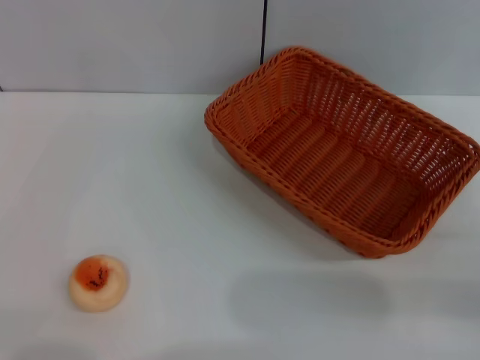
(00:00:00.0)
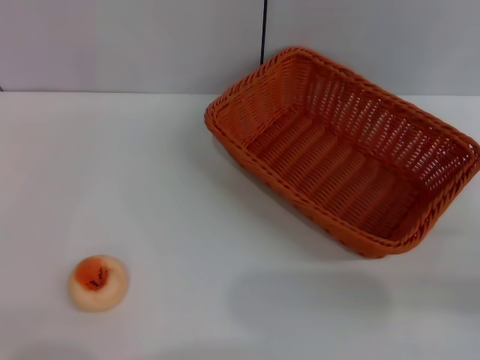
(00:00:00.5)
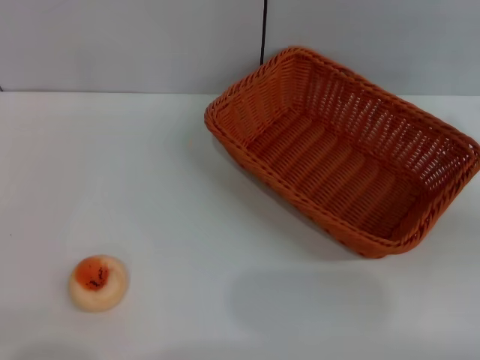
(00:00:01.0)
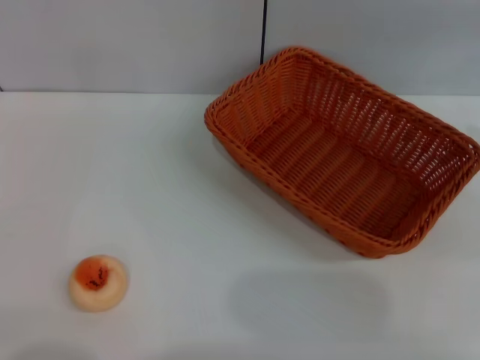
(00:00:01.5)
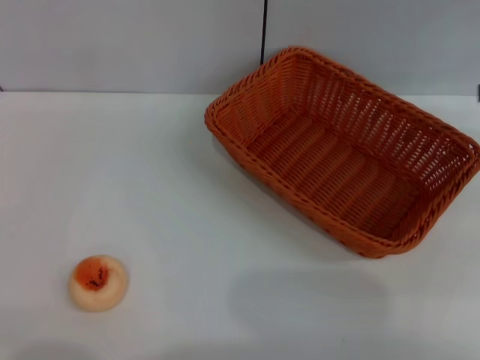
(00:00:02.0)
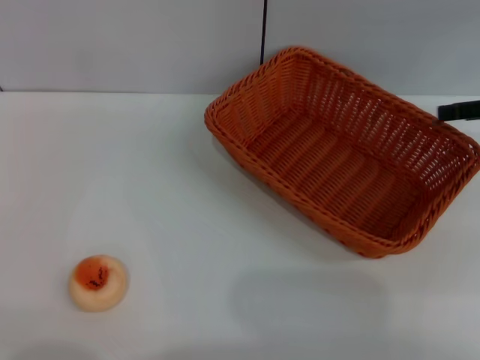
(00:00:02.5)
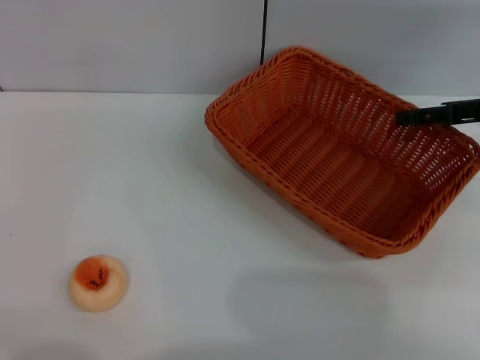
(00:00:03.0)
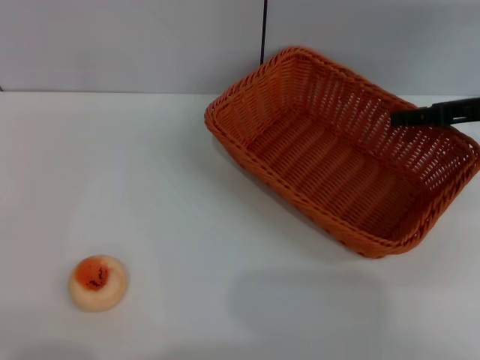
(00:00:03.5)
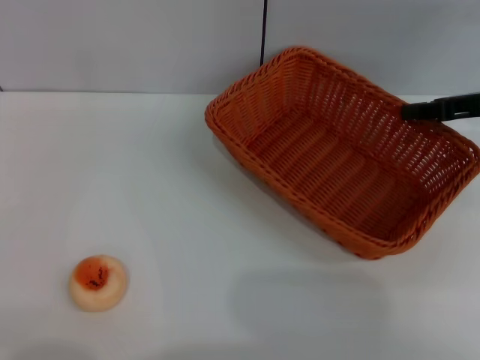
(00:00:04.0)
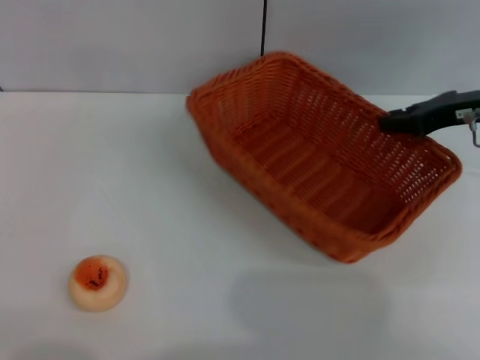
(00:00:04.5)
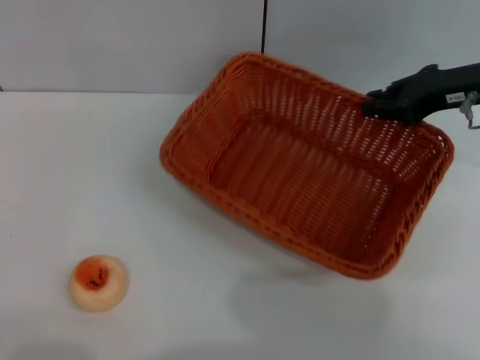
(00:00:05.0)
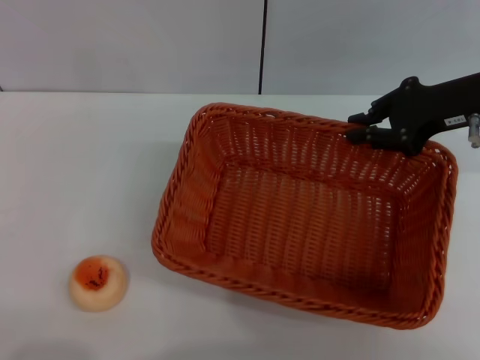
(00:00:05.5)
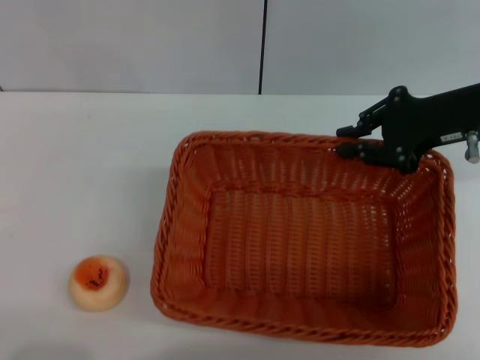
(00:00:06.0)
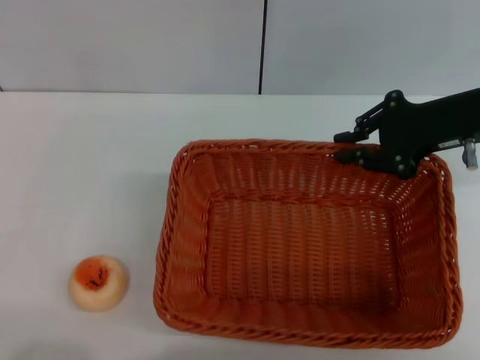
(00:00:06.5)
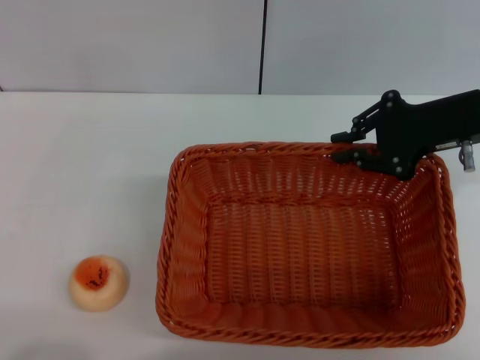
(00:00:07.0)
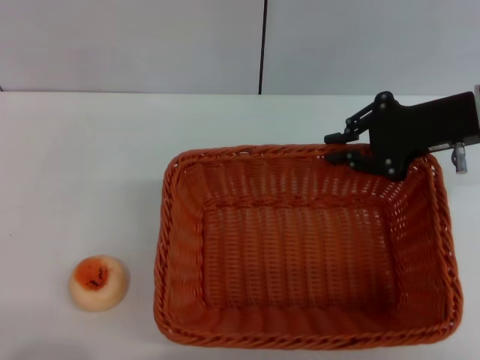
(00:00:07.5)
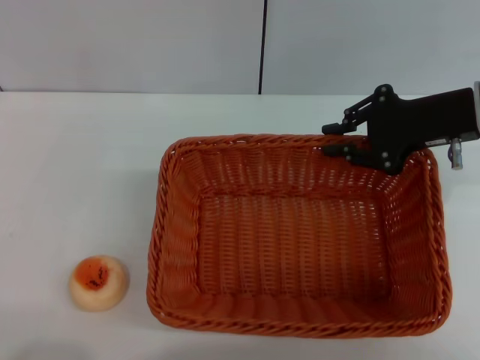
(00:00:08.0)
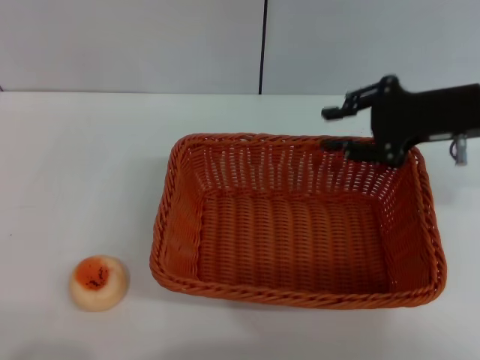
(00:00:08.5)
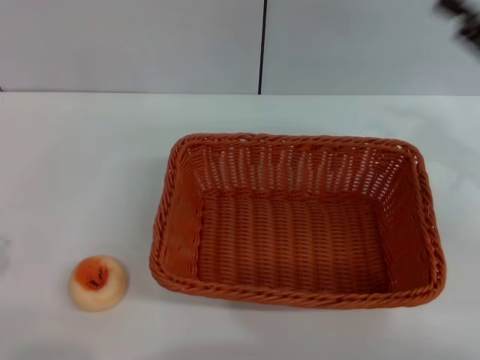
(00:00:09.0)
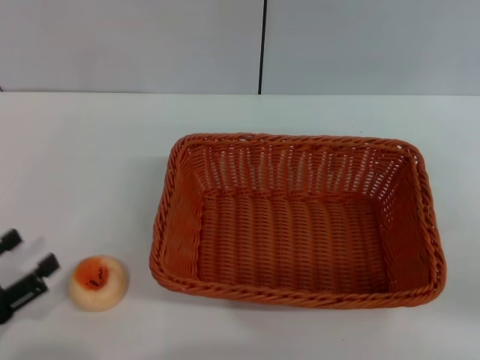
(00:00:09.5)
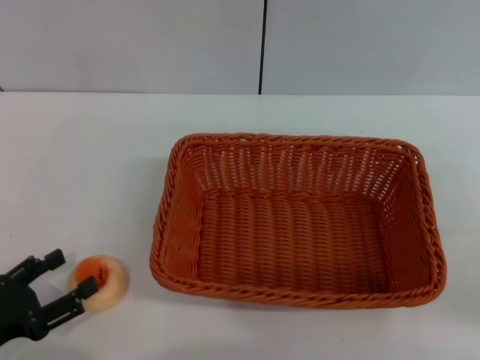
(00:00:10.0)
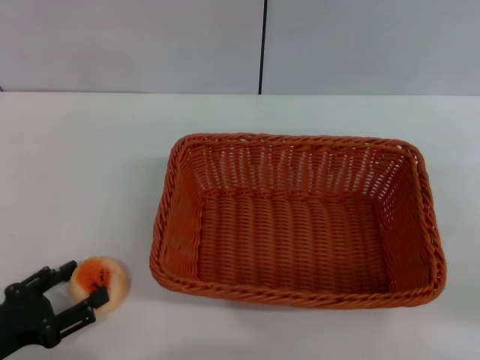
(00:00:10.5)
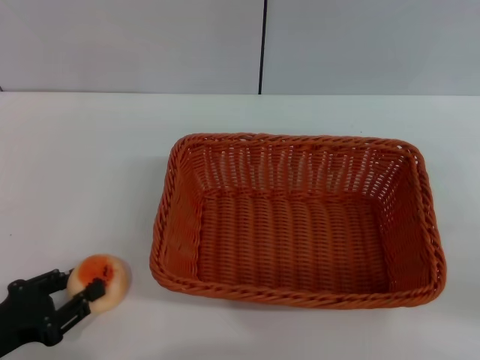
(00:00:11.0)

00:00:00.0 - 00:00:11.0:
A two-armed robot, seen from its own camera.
Step, 00:00:00.0 - 00:00:08.5: Move the basket to the center of view with the right gripper.
00:00:00.0 - 00:00:02.0: The right gripper travels upward and forward by approximately 20 cm.
00:00:02.0 - 00:00:03.5: The right gripper heads downward and to the left, covering some 10 cm.
00:00:03.5 - 00:00:05.5: The right gripper travels to the left by some 5 cm, and closes its fingers.
00:00:07.5 - 00:00:09.0: The right gripper heads to the right and backward, covering roughly 10 cm.
00:00:09.0 - 00:00:11.0: The right gripper heads backward, covering roughly 5 cm. Meanwhile the left gripper goes some 5 cm to the right, and closes.

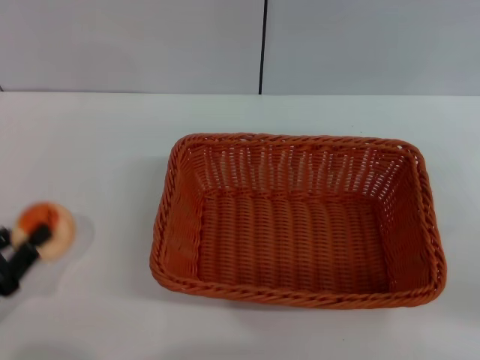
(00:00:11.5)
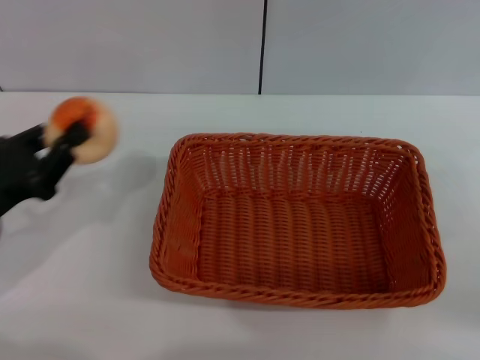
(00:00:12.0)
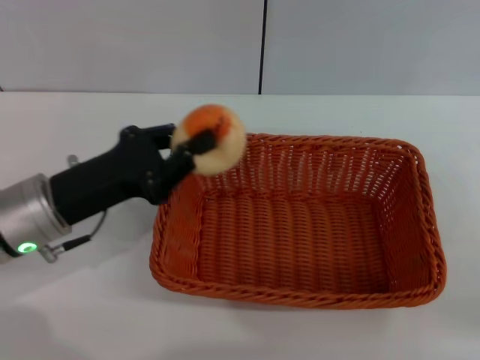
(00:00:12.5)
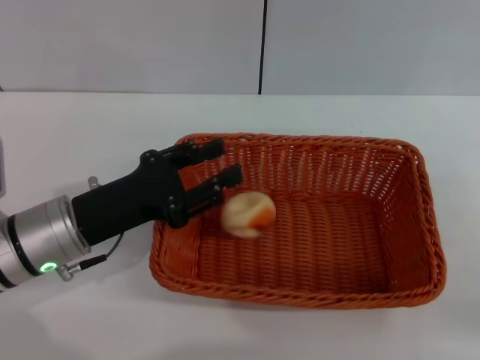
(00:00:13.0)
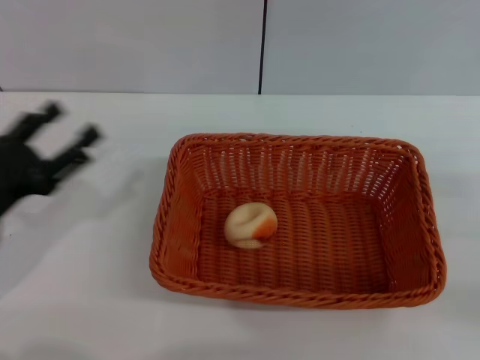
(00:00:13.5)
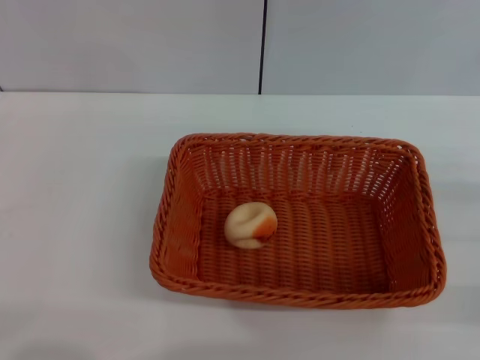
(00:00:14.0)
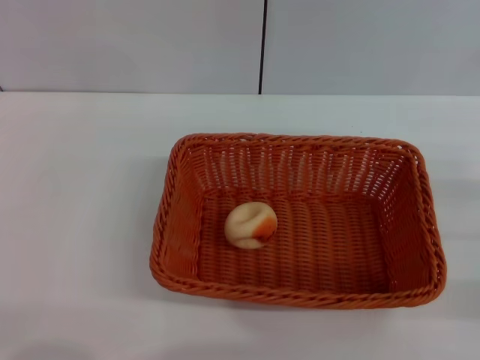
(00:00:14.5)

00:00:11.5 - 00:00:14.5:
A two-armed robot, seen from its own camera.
Step, 00:00:12.0 - 00:00:12.5: Place the egg yolk pastry into the basket with the left gripper.
00:00:11.5 - 00:00:13.0: The left gripper travels to the right and forward by roughly 15 cm.
00:00:13.0 - 00:00:14.5: The left gripper goes roughly 20 cm to the left and backward, and opens up; the right gripper heads downward, covering some 5 cm.
